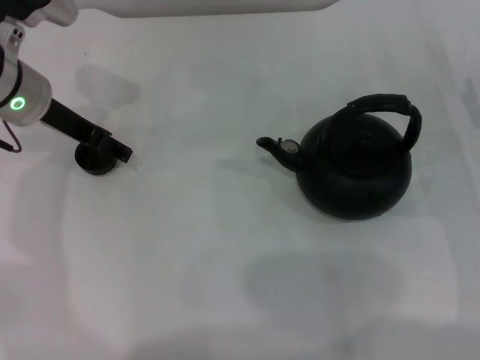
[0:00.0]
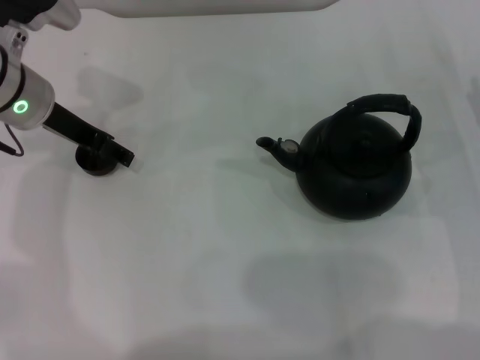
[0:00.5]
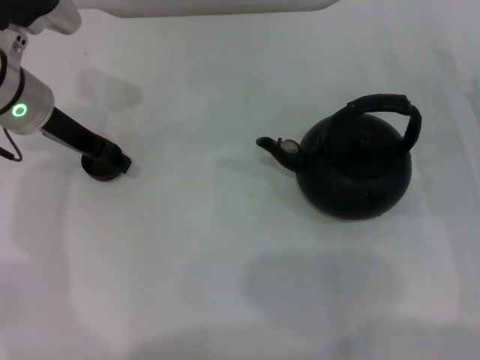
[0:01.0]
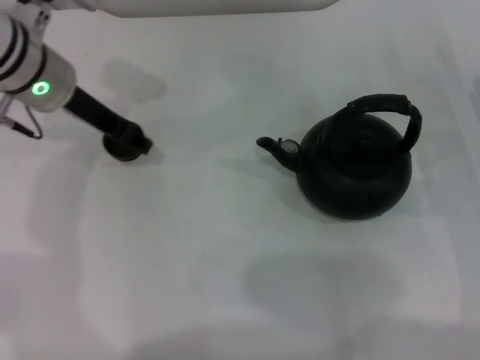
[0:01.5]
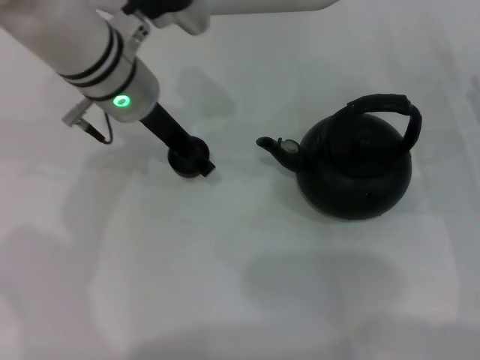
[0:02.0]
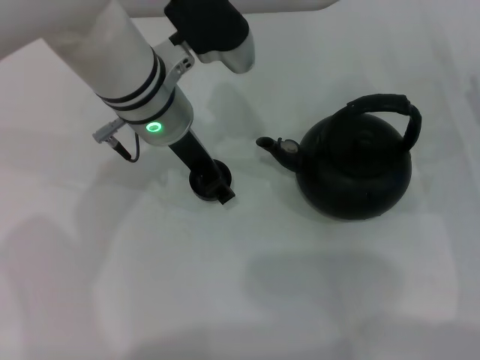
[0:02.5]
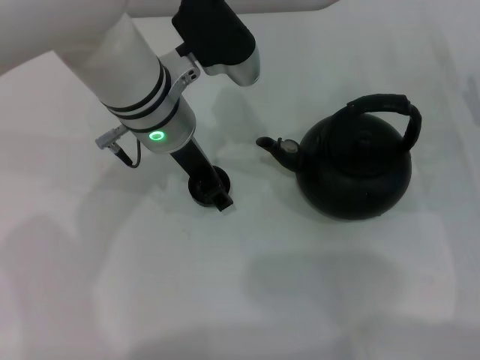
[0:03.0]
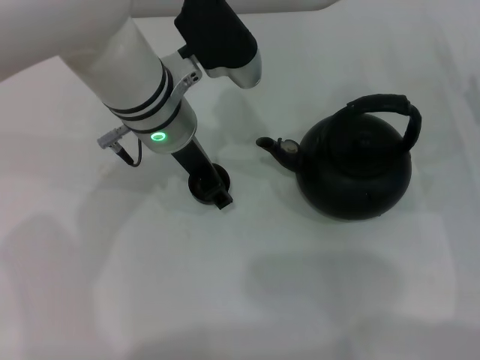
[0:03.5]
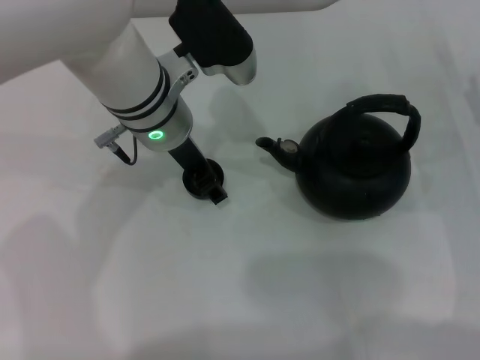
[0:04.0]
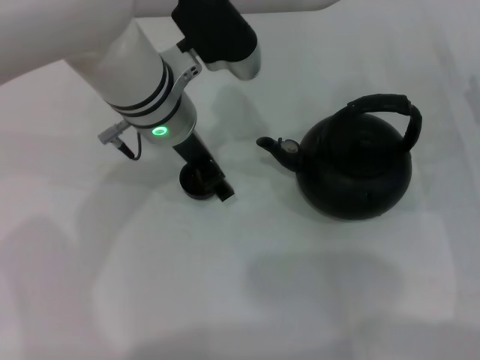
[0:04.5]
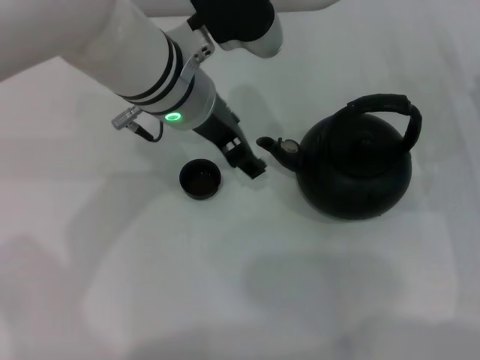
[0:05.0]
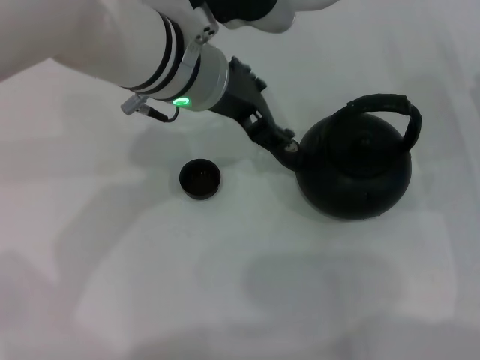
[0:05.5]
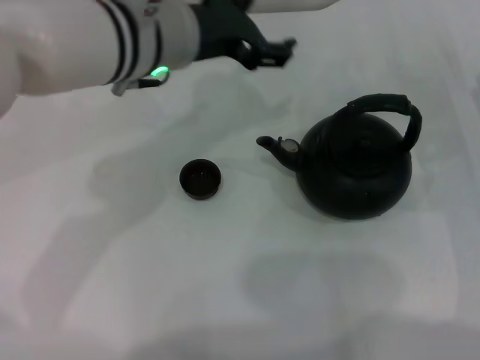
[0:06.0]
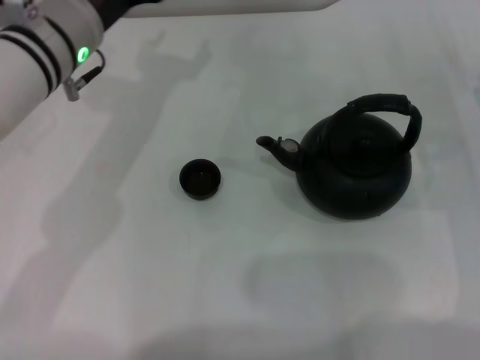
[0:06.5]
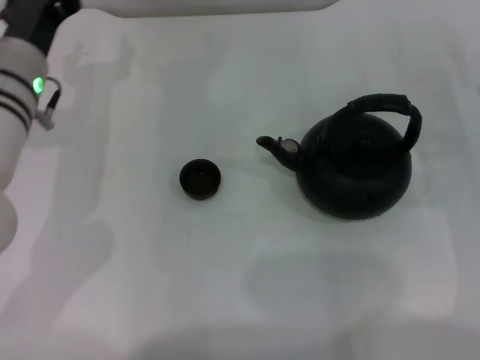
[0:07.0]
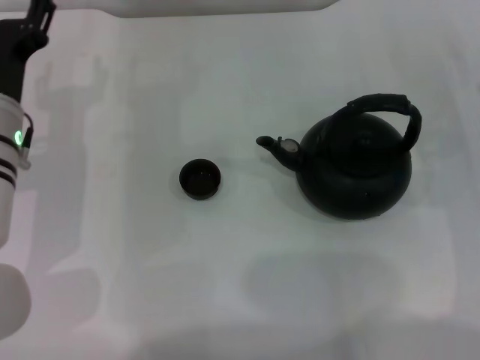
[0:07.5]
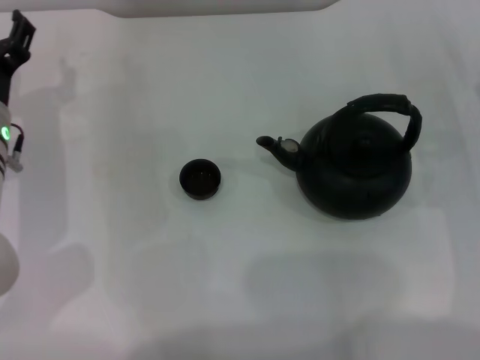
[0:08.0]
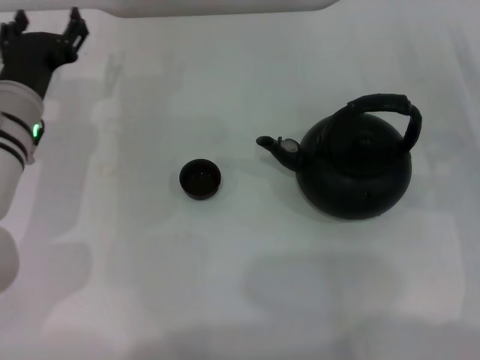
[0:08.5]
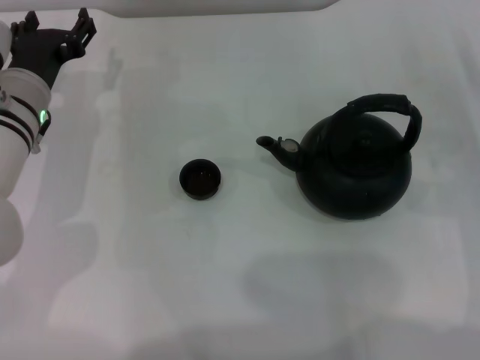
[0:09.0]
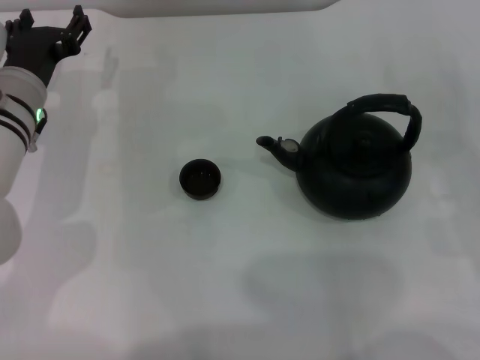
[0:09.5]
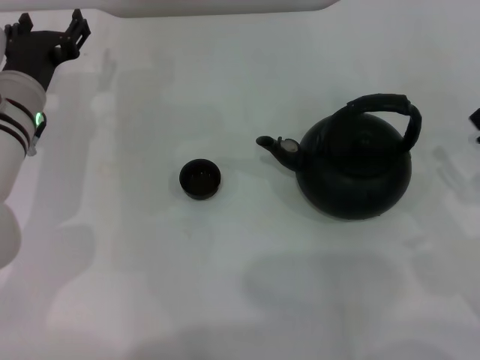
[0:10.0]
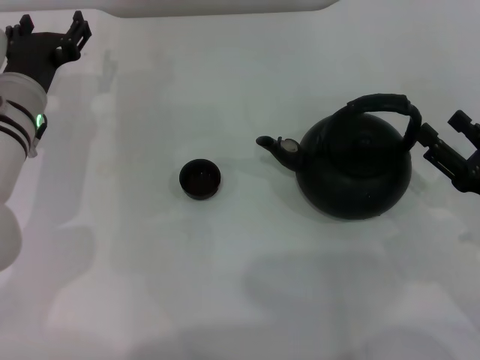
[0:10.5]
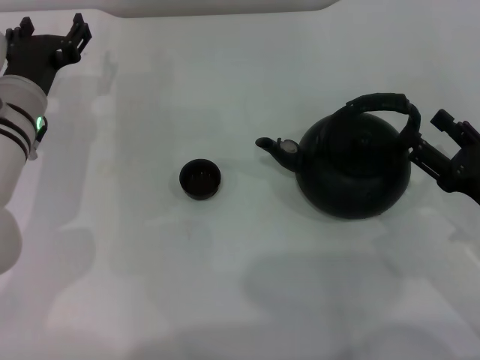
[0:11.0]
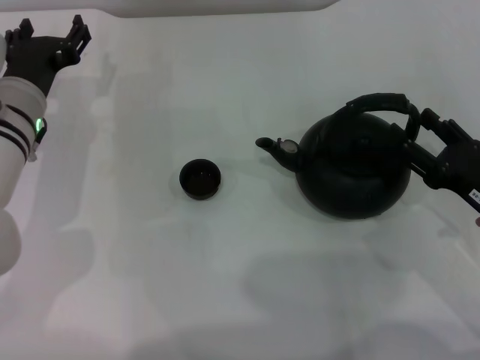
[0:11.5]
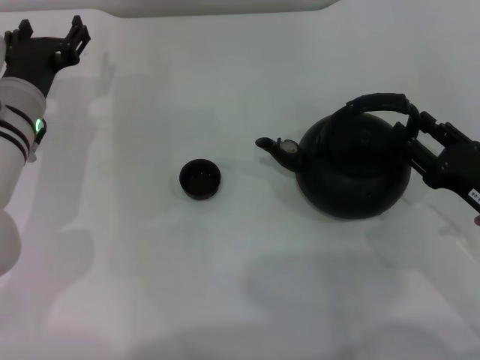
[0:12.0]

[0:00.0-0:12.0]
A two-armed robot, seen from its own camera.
Task of the whole recording: Grasp the handle of the teapot with one hand and pour tea into the teacup.
Step, 0:02.0 to 0:05.0: Place the teacup in the center of view with the left gripper.
0:00.0 to 0:02.0: The left gripper travels to the right by roughly 10 cm, and closes its fingers.
0:02.0 to 0:04.0: The grippers stay close to where they were, moving slightly.
0:04.0 to 0:06.0: The left gripper heads upward, covering some 5 cm, and opens up.
0:06.0 to 0:08.0: The left gripper moves to the left and downward, approximately 20 cm.
0:10.0 to 0:12.0: The right gripper ends up roughly 5 cm from where it was.

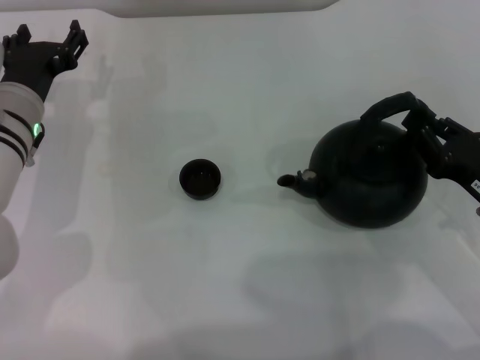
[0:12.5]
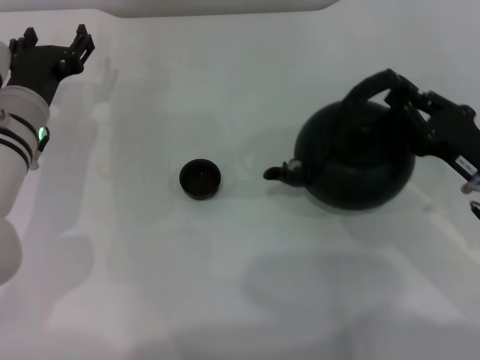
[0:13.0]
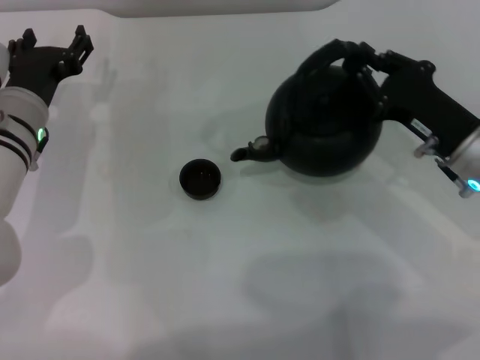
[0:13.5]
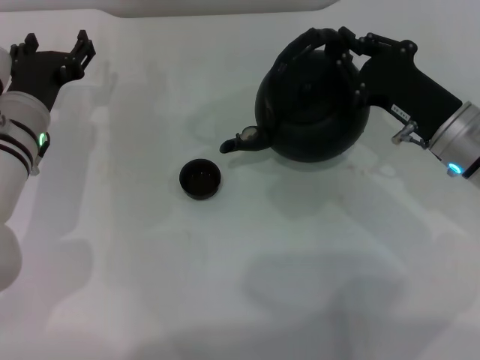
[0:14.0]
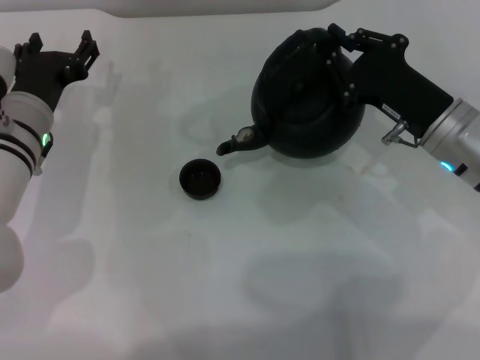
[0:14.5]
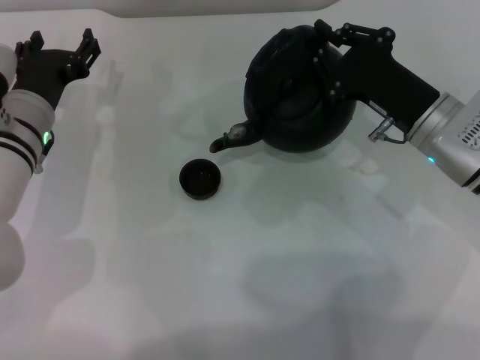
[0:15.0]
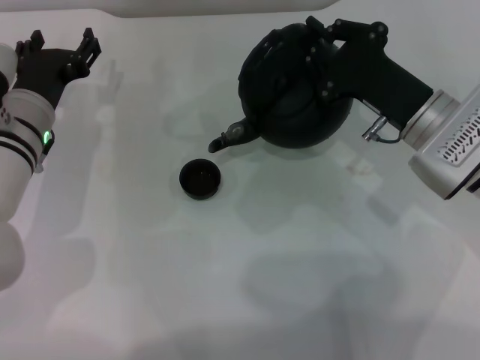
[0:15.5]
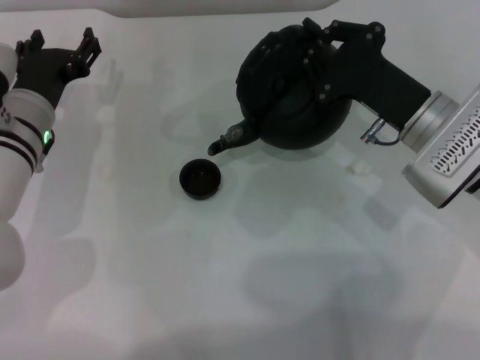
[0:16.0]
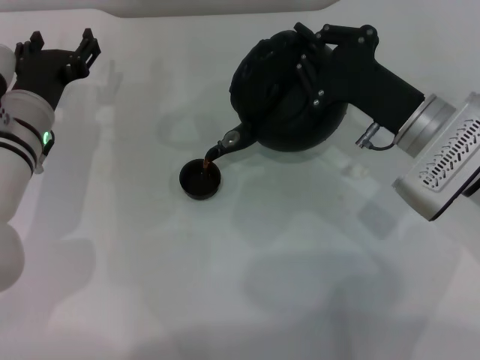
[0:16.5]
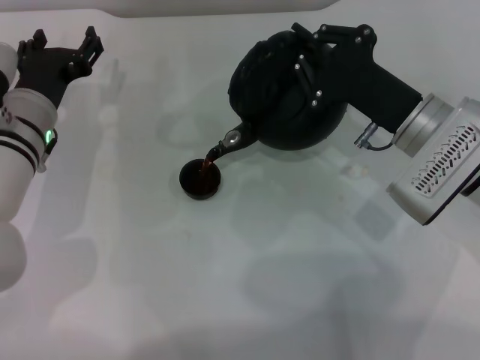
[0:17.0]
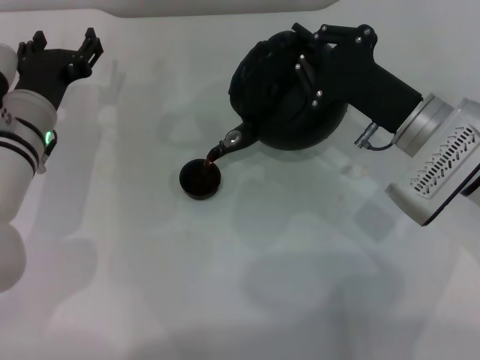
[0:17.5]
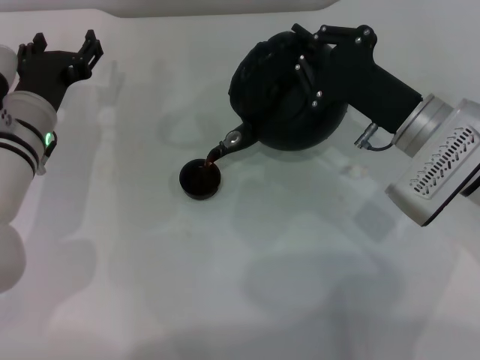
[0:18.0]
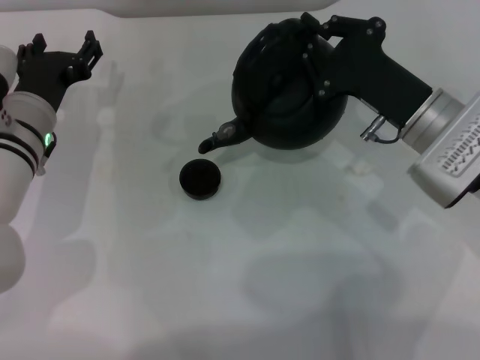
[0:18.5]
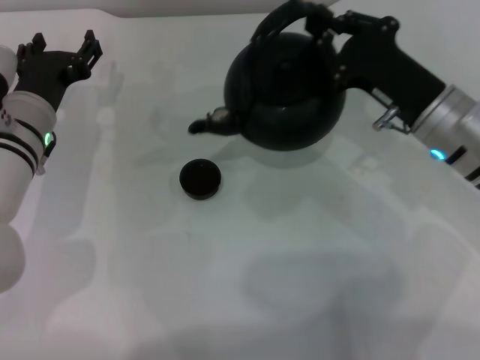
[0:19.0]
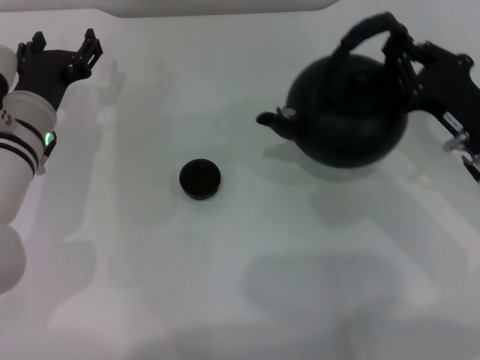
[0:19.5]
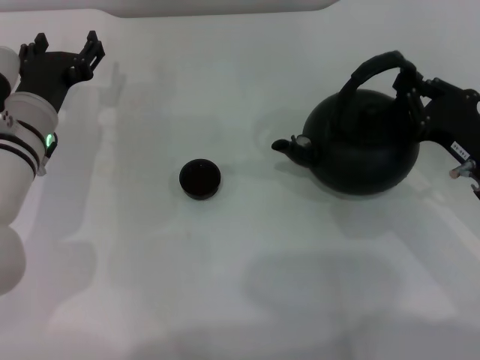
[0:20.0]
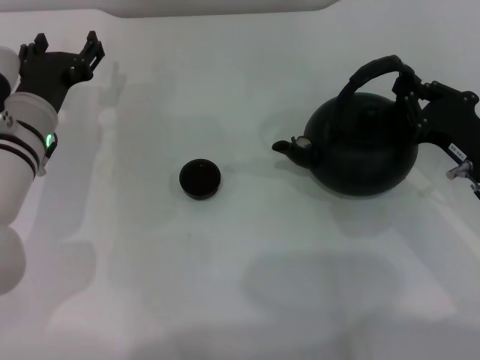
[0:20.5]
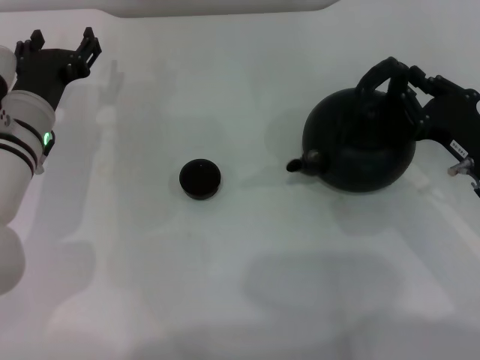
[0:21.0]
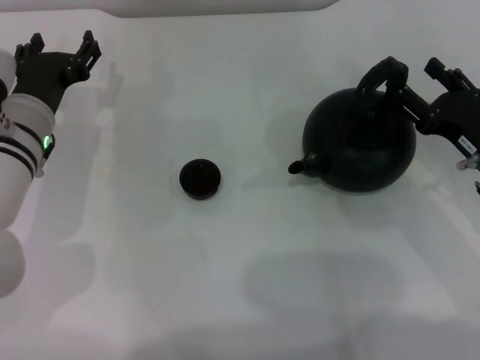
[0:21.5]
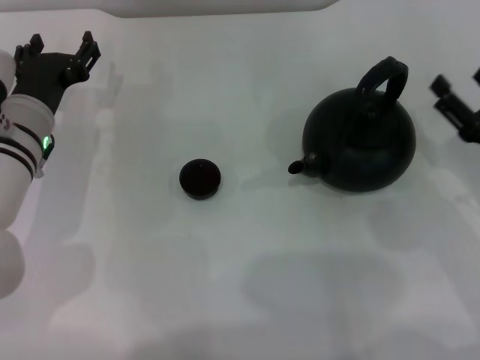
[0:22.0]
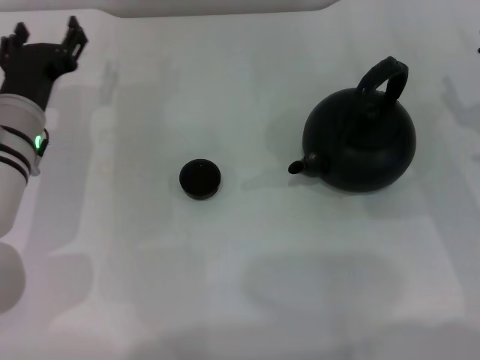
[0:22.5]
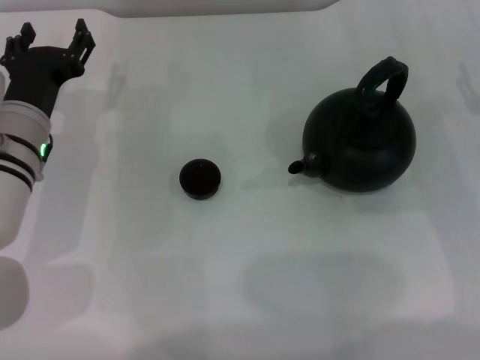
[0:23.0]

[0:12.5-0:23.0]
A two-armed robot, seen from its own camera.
Task of the whole recording: Grasp the handle of the teapot with one hand and pour tea into the teacup.
Step, 0:13.5 to 0:19.0: Pour tea into the teacup with the right gripper.
Step, 0:19.5 to 0:21.5: Put down the teapot with the right gripper.
0:12.5 to 0:14.5: The right gripper heads forward and to the left, covering about 10 cm.
0:19.0 to 0:21.0: The right gripper moves to the right, about 5 cm.
0:21.0 to 0:23.0: The right gripper changes place by about 5 cm, and opens its fingers.

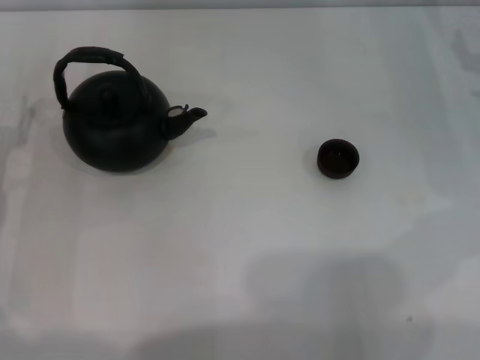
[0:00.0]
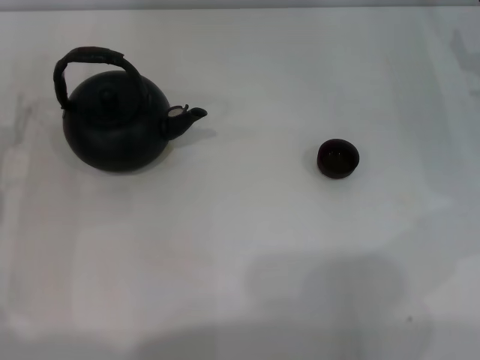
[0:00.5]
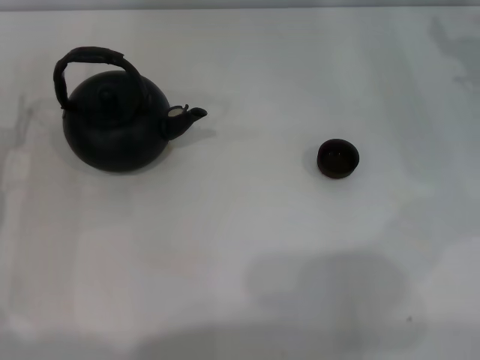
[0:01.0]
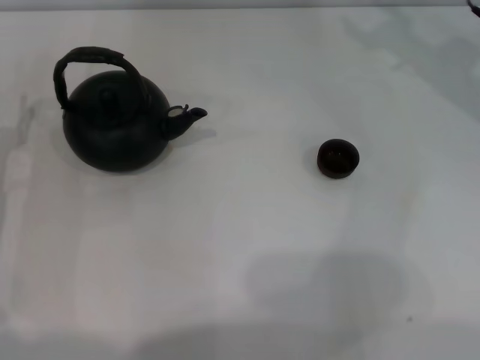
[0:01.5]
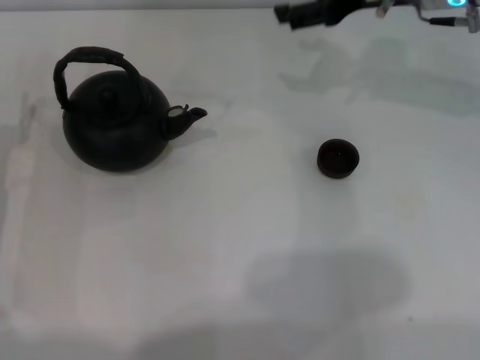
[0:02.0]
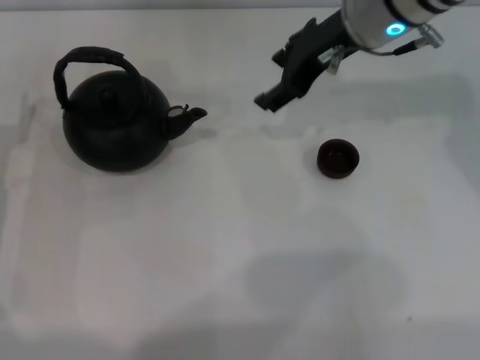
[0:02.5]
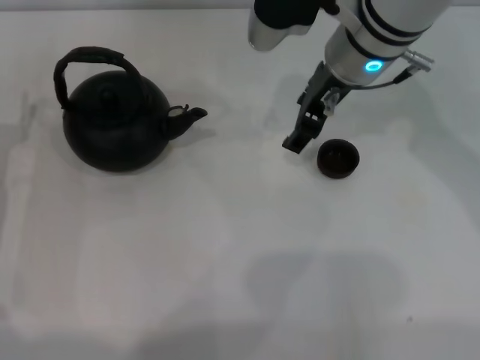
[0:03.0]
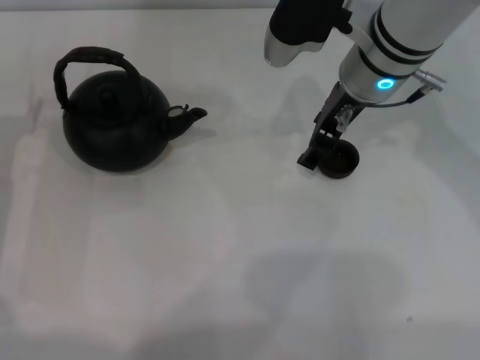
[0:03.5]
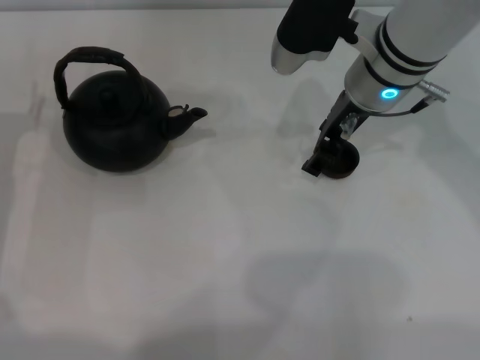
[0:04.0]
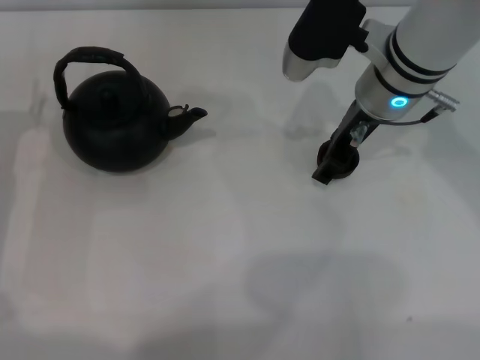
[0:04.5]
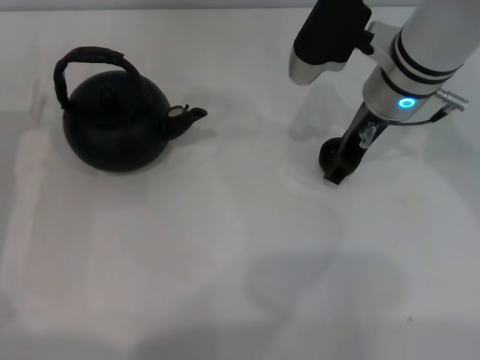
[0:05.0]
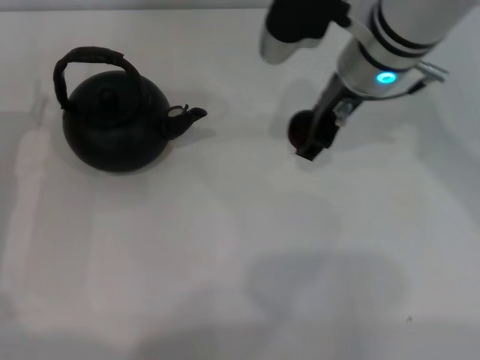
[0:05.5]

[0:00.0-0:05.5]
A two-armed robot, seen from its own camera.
Task of the whole recording: Grasp the handle of the teapot with one hand and pour tea into the teacup.
Step, 0:00.0 to 0:05.0: Pick up the teacup with the right gripper.
0:00.0 to 0:02.0: The right gripper travels to the left and upward by approximately 20 cm.
0:02.0 to 0:03.5: The right gripper moves to the left, approximately 10 cm.
0:03.5 to 0:05.5: The right gripper closes its fingers.
